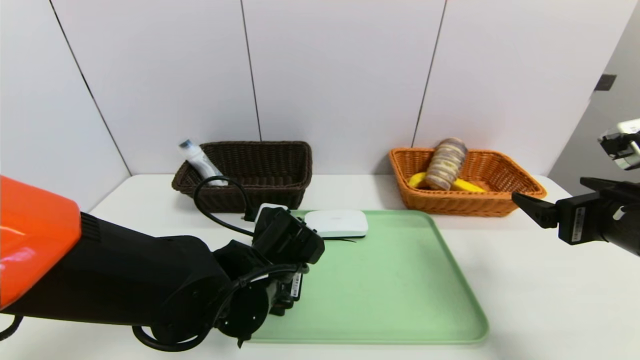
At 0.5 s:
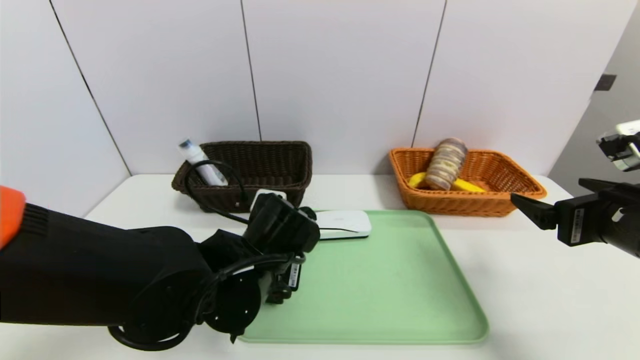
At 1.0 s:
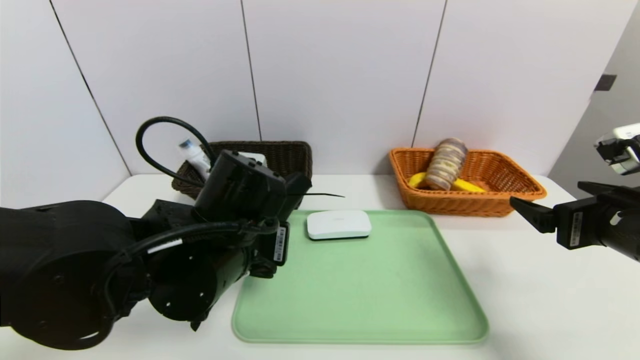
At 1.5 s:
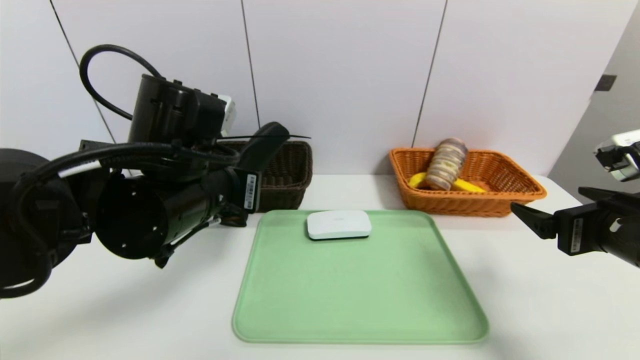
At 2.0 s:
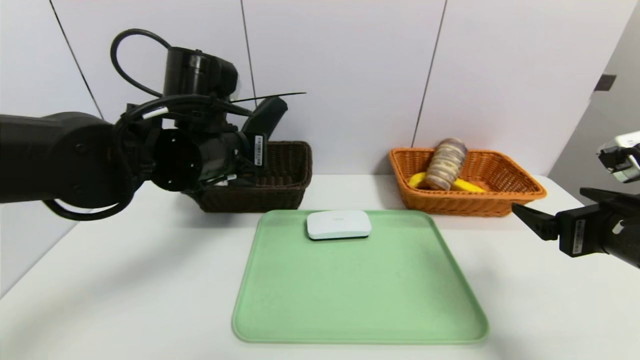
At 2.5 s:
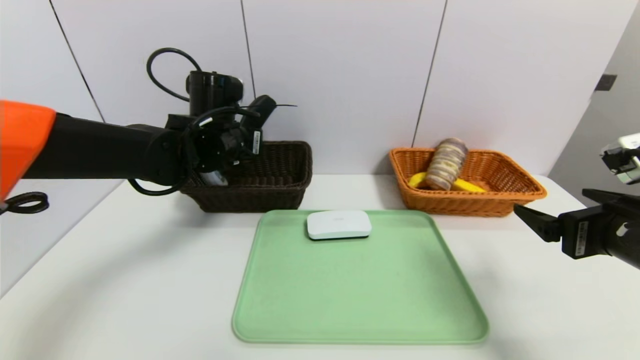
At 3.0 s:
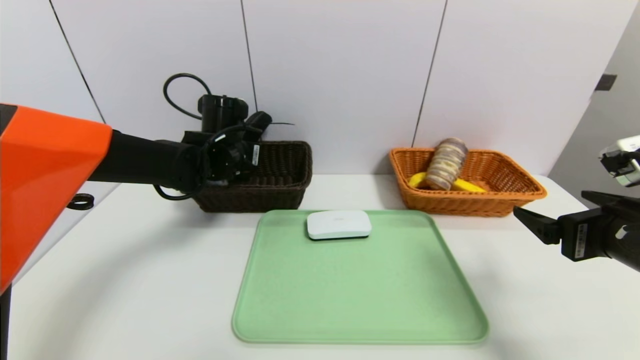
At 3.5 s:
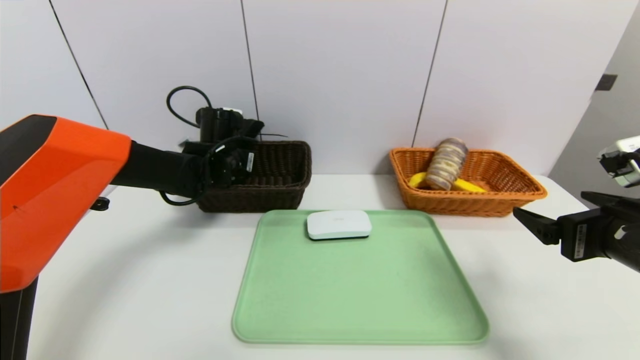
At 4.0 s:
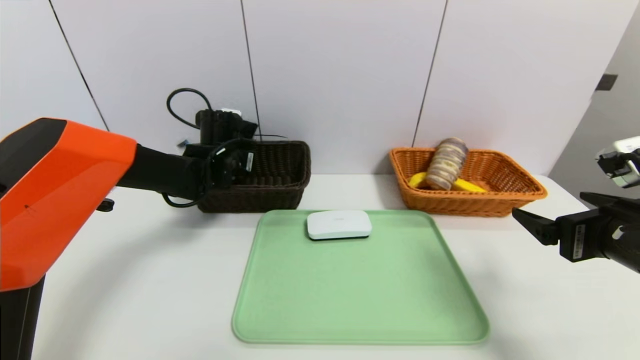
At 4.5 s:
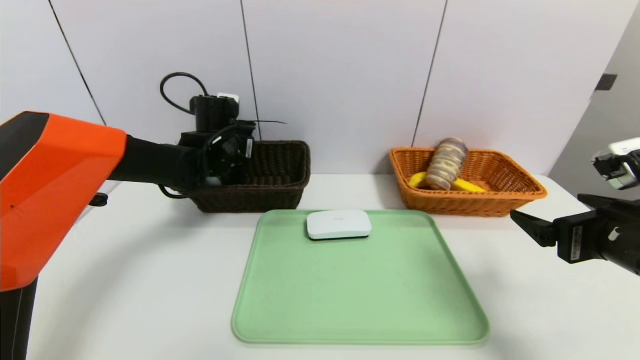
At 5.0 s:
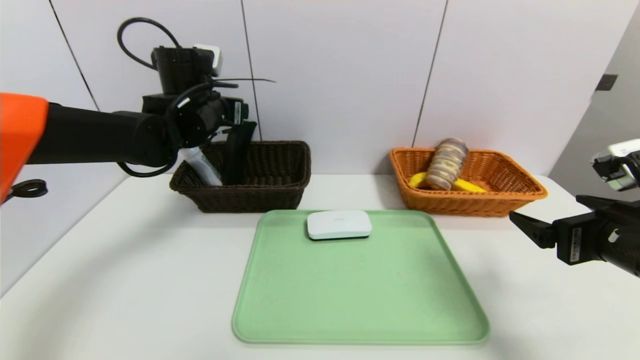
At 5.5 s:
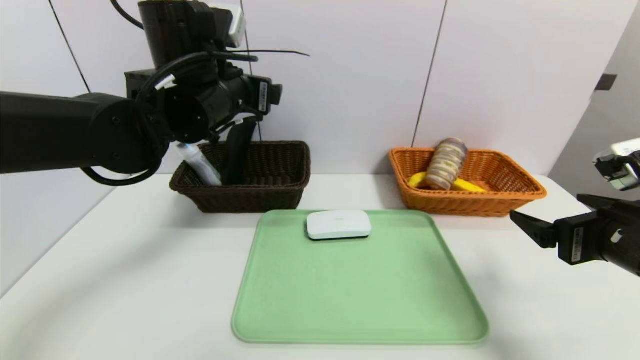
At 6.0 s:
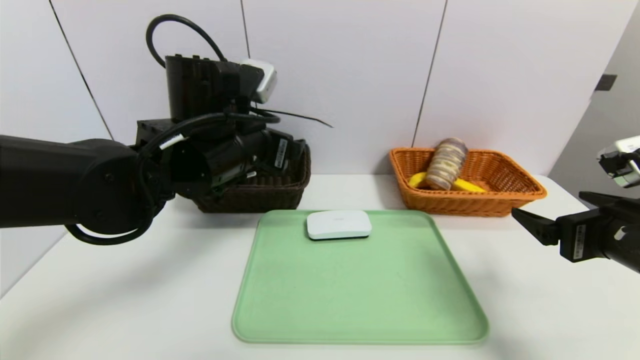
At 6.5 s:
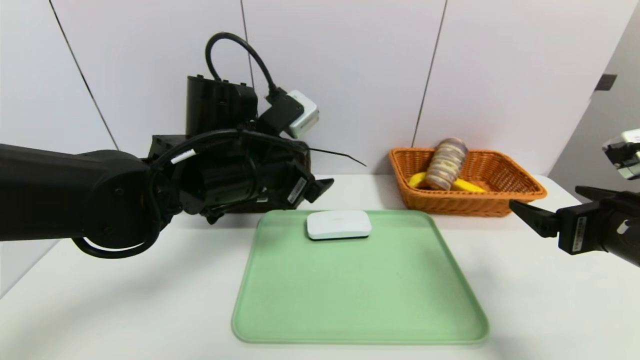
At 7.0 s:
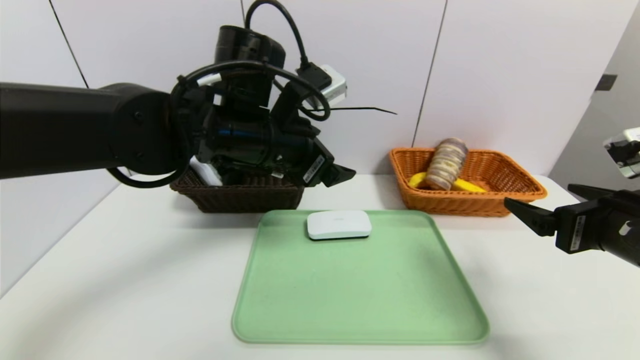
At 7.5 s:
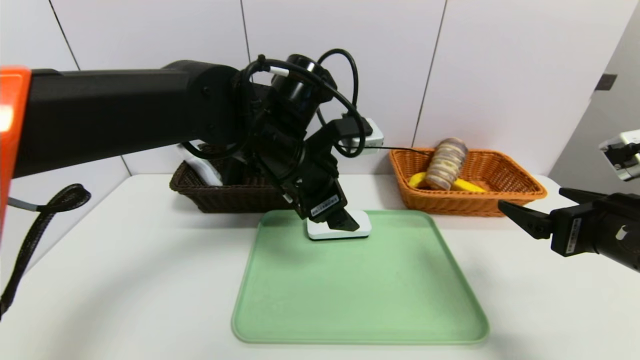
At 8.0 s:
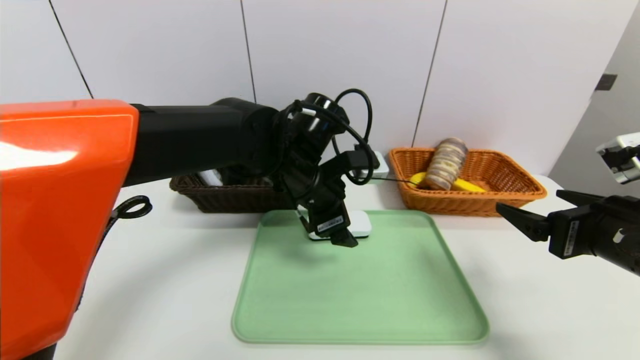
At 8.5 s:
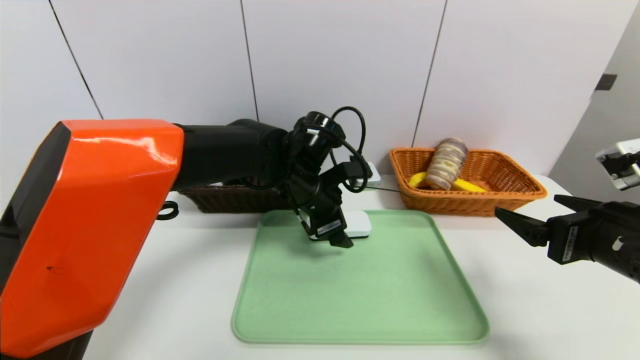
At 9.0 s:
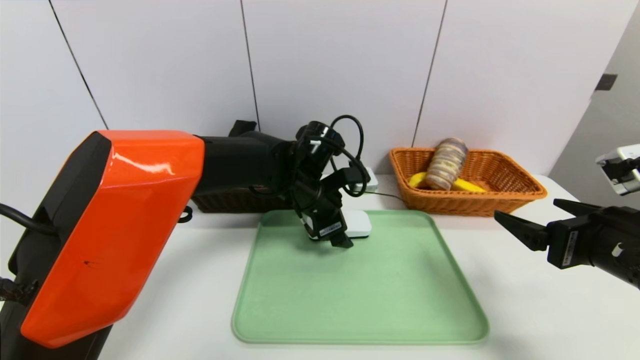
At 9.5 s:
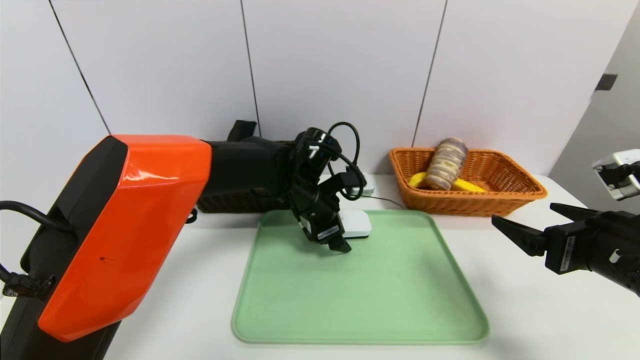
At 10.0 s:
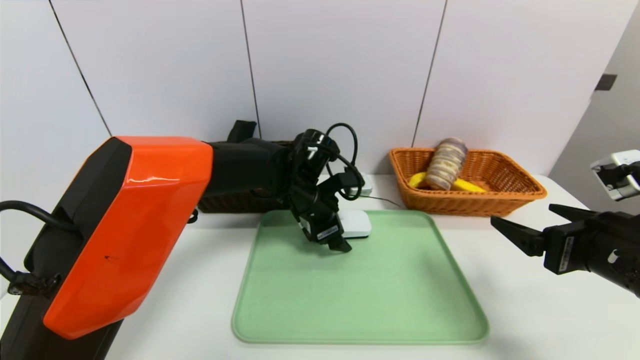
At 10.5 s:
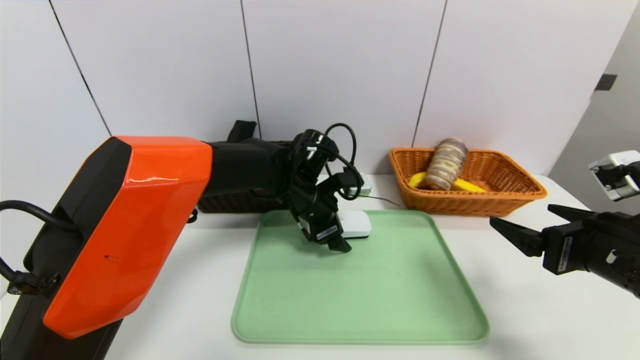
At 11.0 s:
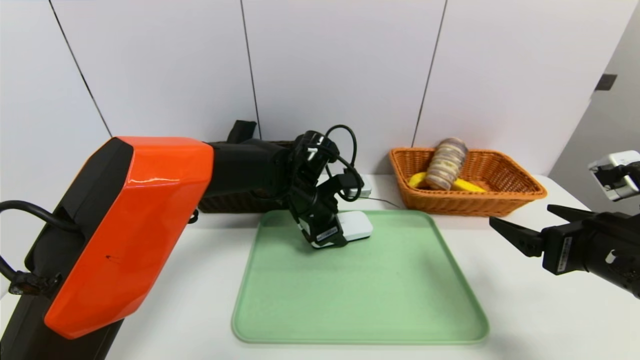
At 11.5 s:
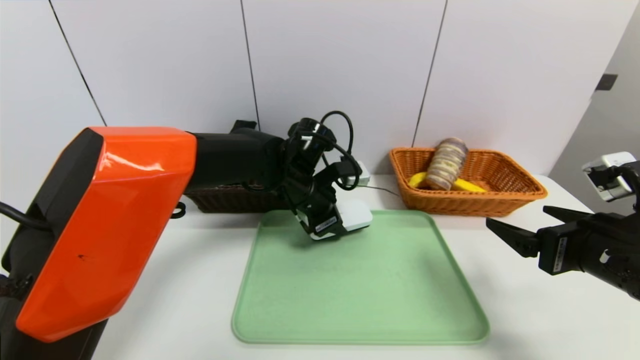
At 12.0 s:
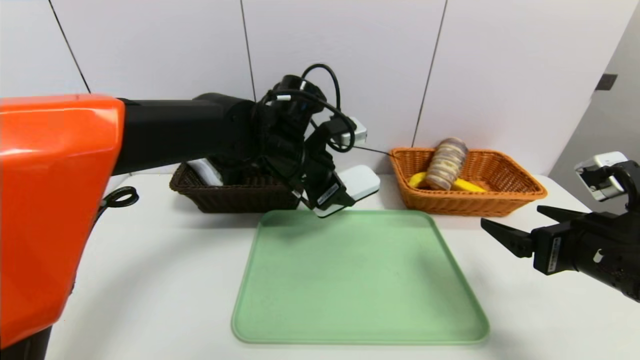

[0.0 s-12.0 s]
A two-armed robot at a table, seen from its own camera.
Task of the whole recording: place the food in the right basket with the right gripper, and place the non food items in the left basket with the left gripper.
Step, 0.0 to 4.5 s: Grasp the glasses case and put it in the left basket.
0.0 to 2.0 s: The left gripper travels upward and forward by some 15 cm, and closes up.
2.0 to 4.0 s: The left gripper goes approximately 15 cm forward and downward.
4.0 to 6.0 s: The left gripper is displaced backward, upward and to the right by roughly 20 cm, and opens up.
6.0 to 8.0 s: The left gripper heads to the right, covering roughly 10 cm.
8.0 to 10.0 s: The left gripper moves downward and forward, about 10 cm.
10.0 to 12.0 s: The left gripper heads upward, covering some 10 cm, and closes up.

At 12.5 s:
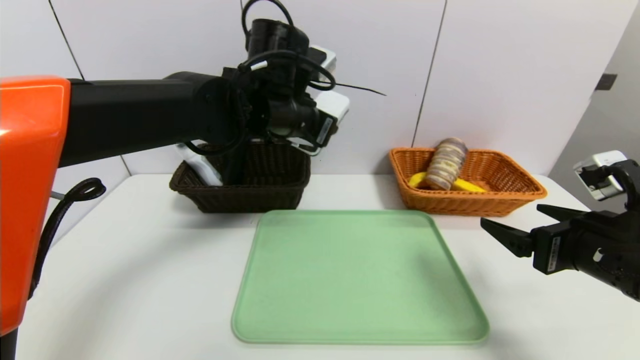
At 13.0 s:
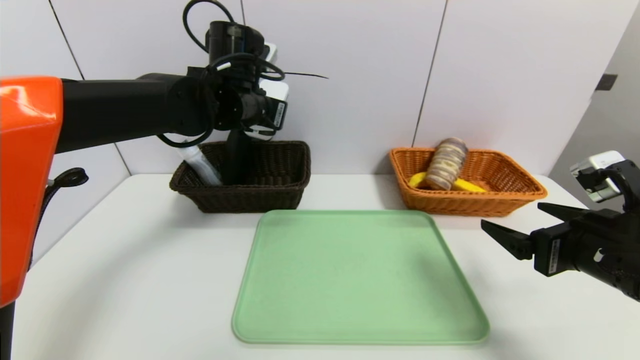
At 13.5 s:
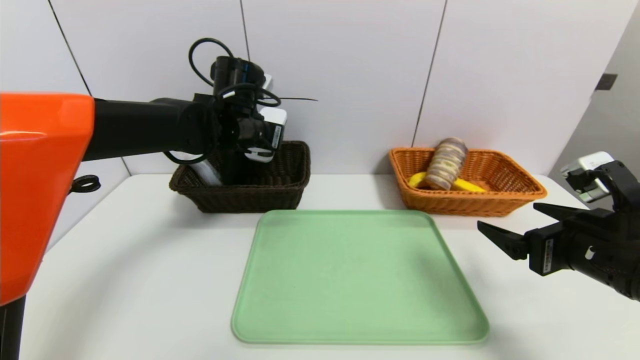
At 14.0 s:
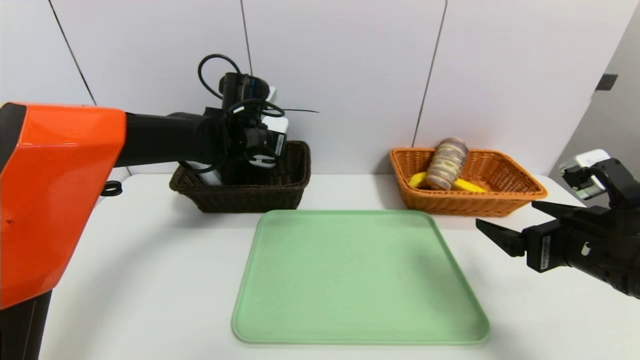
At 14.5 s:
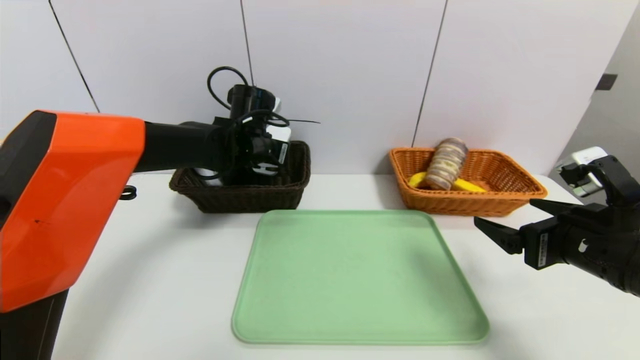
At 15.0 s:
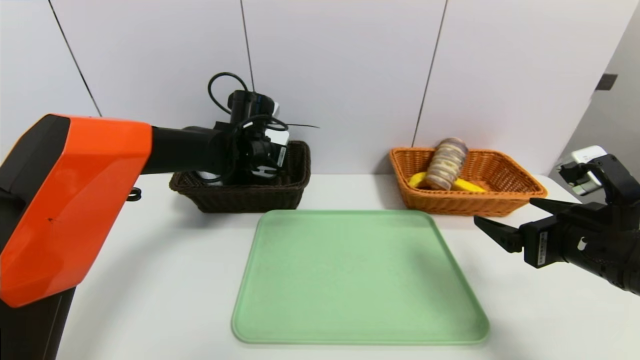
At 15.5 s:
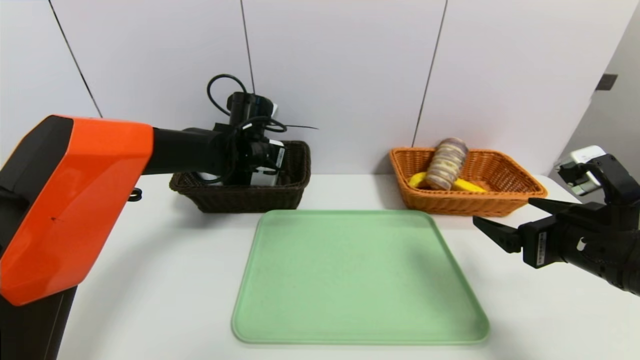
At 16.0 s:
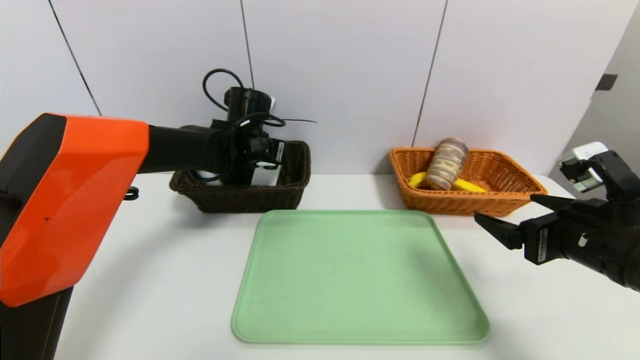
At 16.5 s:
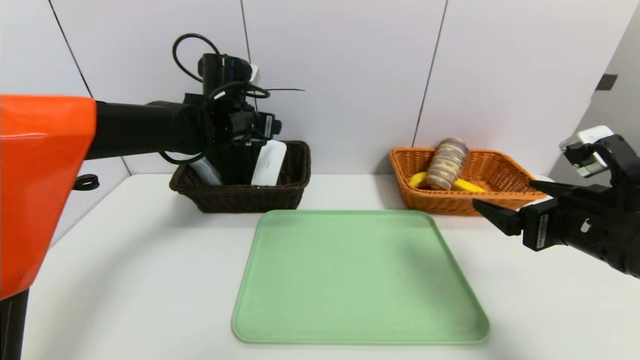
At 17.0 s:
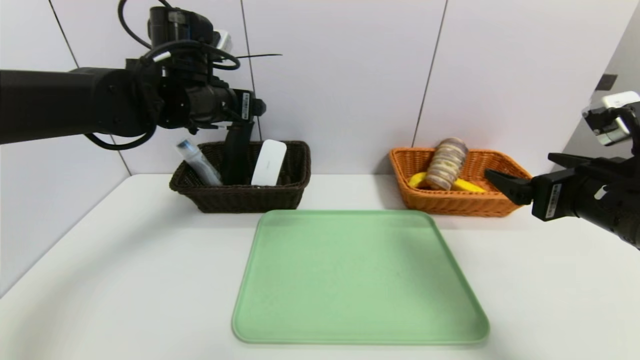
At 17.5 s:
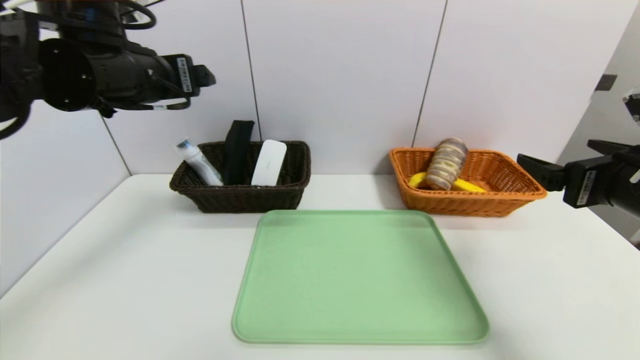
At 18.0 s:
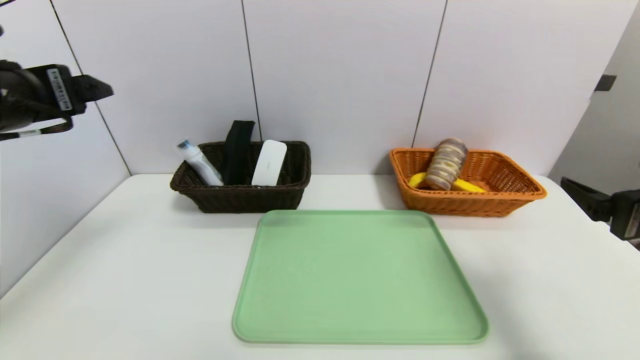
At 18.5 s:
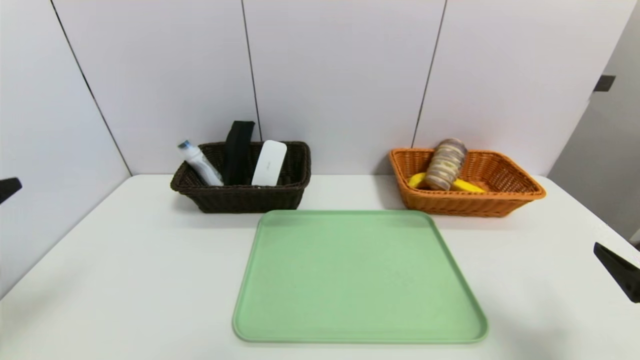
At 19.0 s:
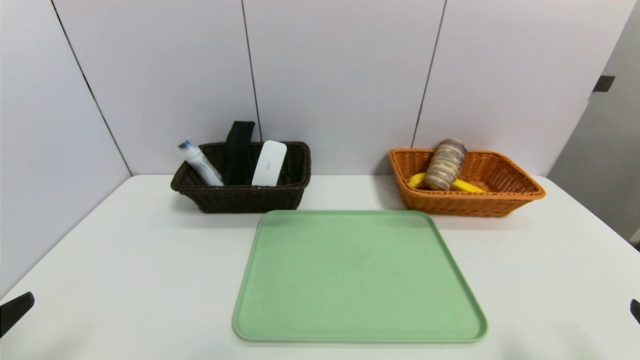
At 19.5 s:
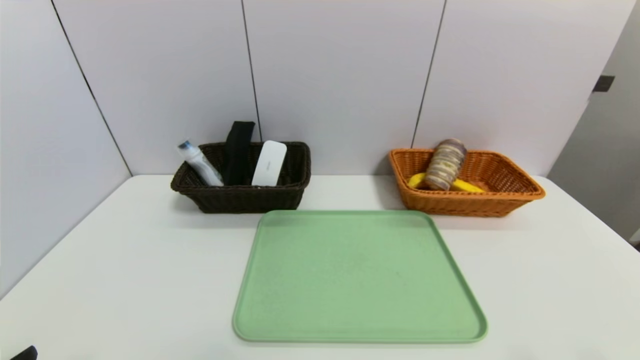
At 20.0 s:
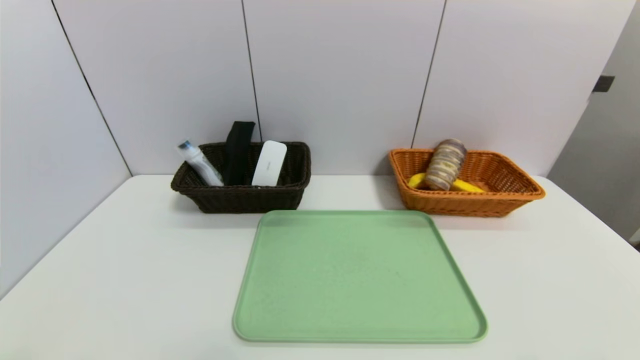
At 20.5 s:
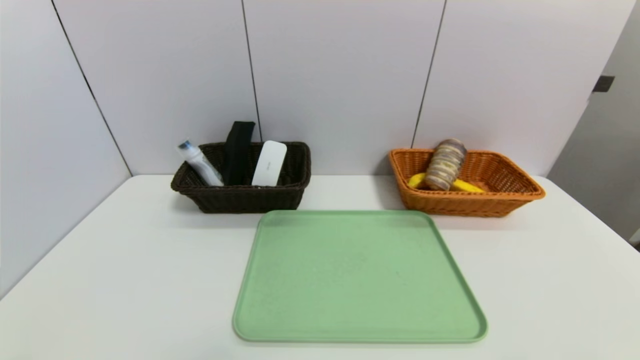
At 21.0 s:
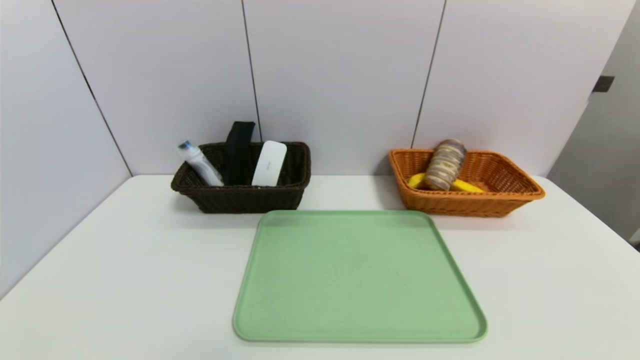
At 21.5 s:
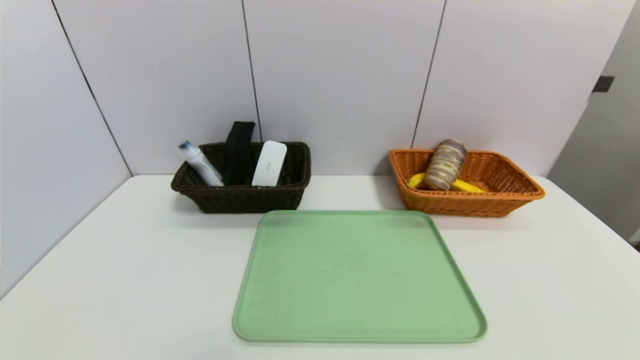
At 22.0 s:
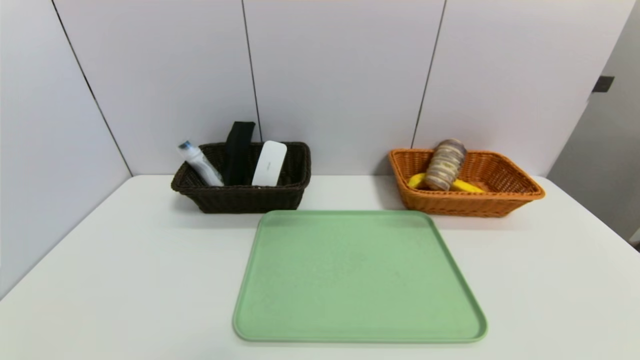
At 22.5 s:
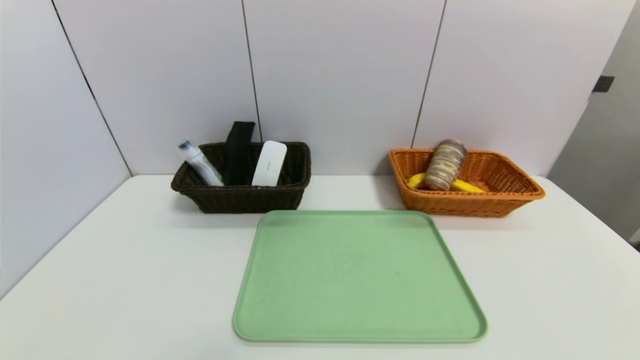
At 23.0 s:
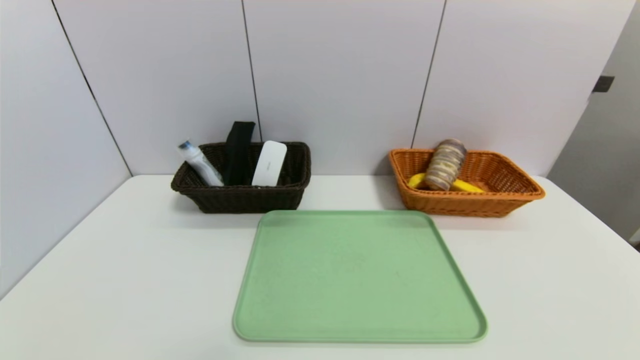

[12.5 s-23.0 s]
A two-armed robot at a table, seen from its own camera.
Task of the whole recording: place the food in the right basket with the right gripper, and place the non food items in the left basket with the left gripper.
Step, 12.5 to 16.0 s: Grasp the white eraser and put it in the left basket.
12.5 to 14.5 s: The left gripper goes roughly 10 cm downward, forward and to the left.
14.5 to 16.5 s: The left gripper goes some 5 cm upward, and opens up.
16.5 to 19.0 s: The left gripper moves backward, approximately 40 cm. The right gripper travels backward by some 15 cm.
